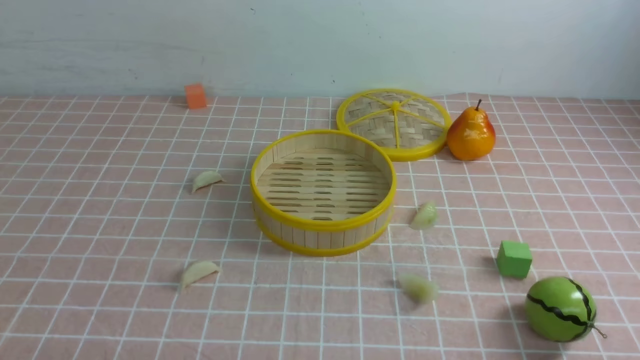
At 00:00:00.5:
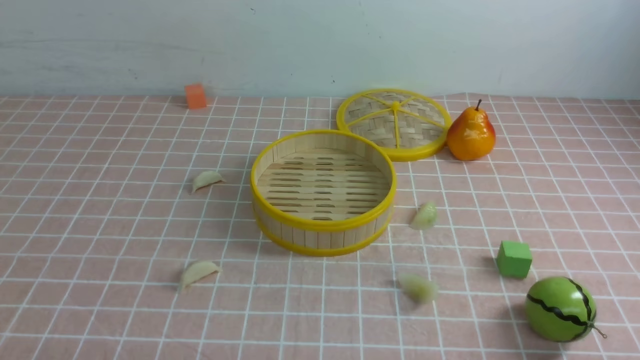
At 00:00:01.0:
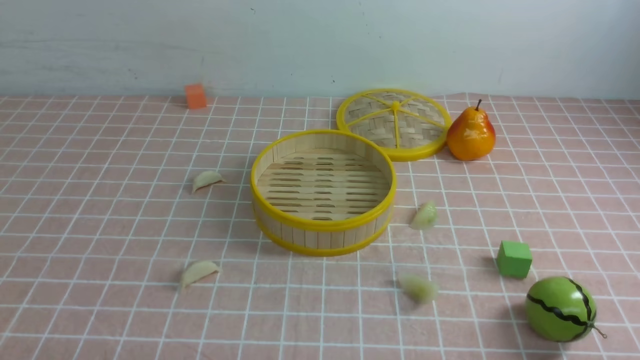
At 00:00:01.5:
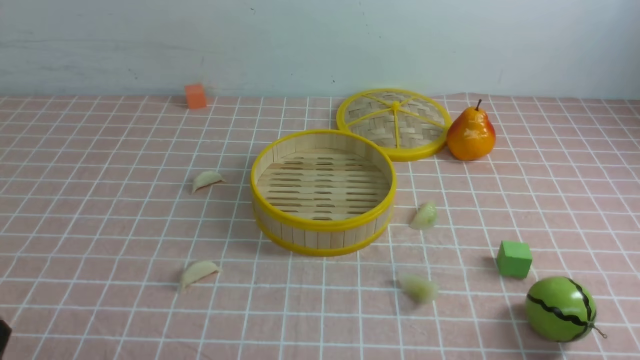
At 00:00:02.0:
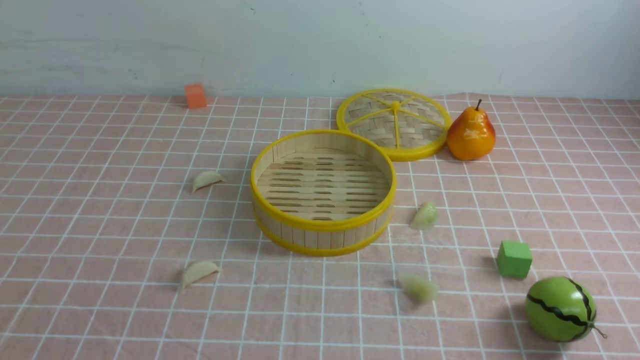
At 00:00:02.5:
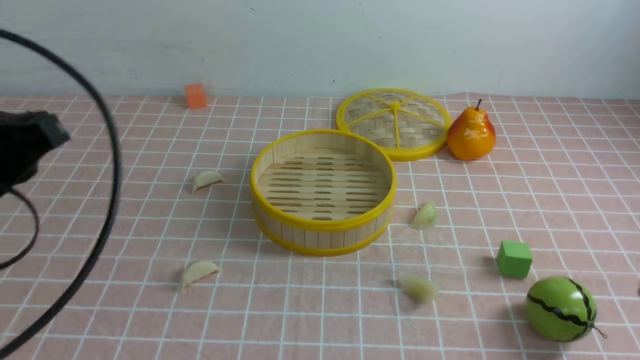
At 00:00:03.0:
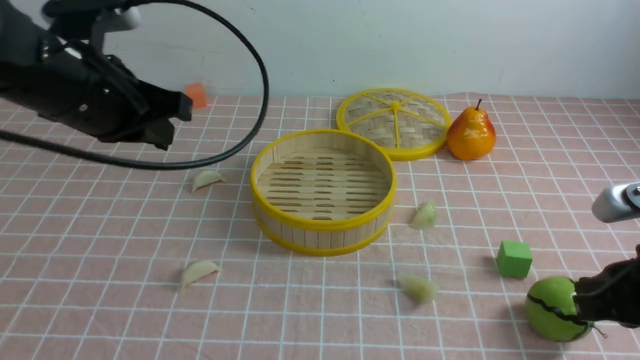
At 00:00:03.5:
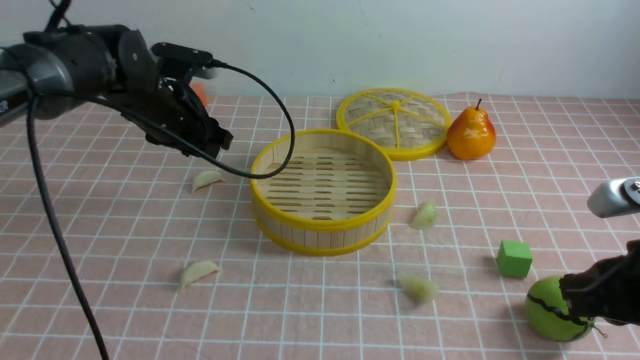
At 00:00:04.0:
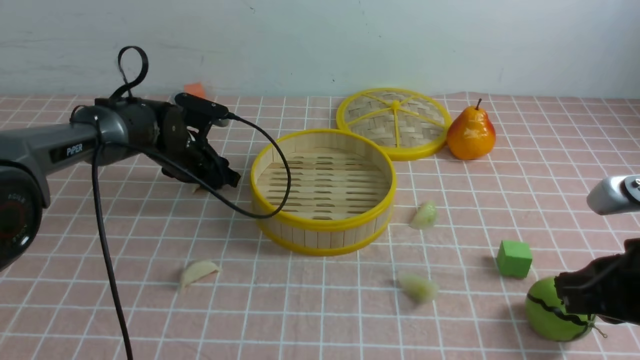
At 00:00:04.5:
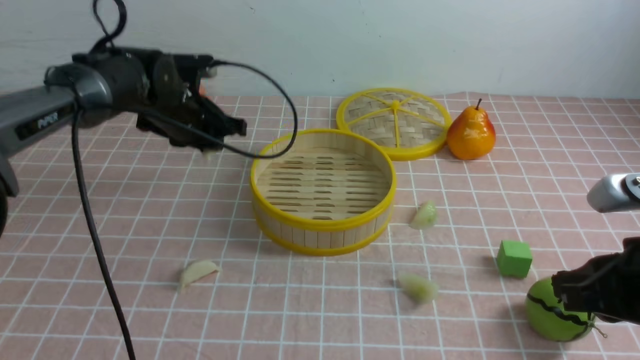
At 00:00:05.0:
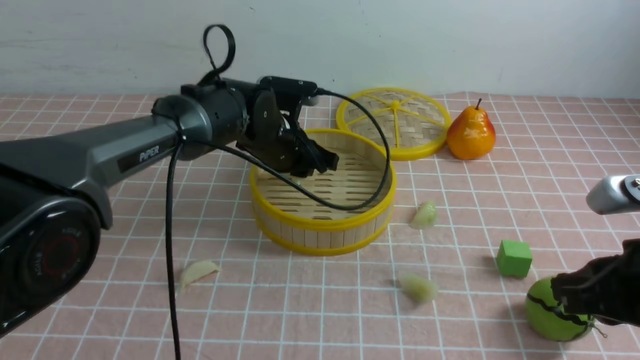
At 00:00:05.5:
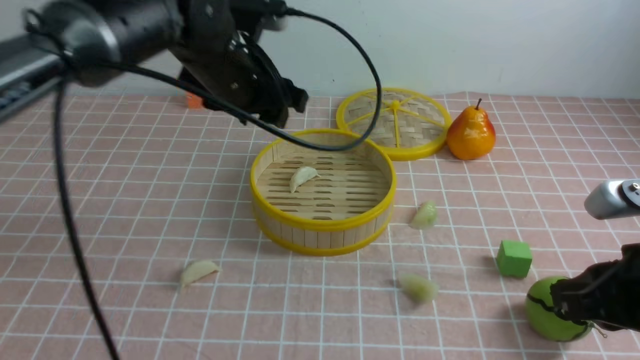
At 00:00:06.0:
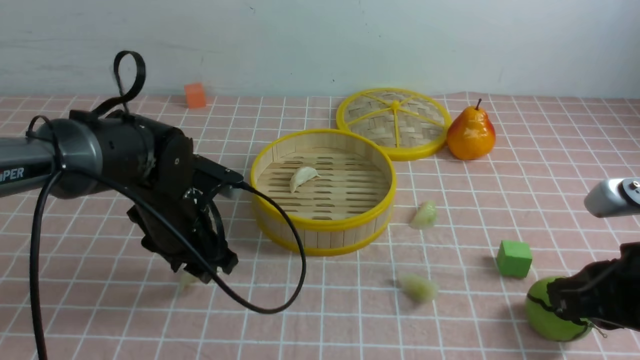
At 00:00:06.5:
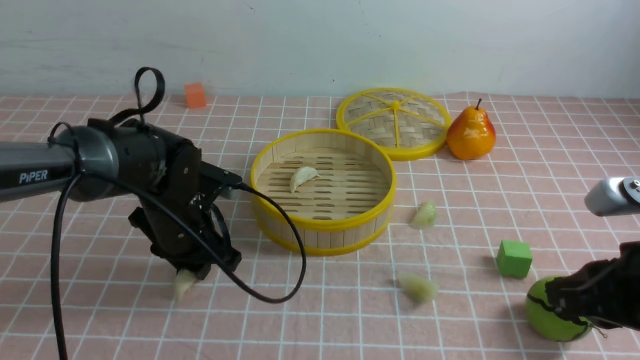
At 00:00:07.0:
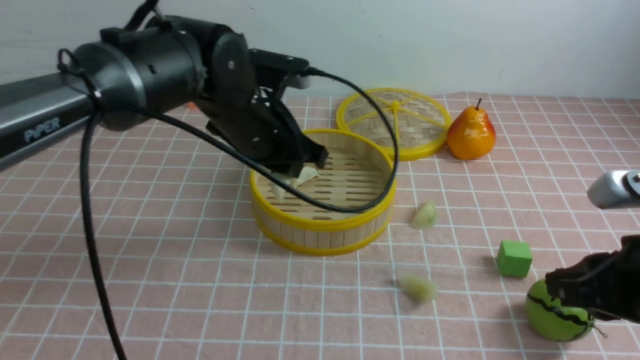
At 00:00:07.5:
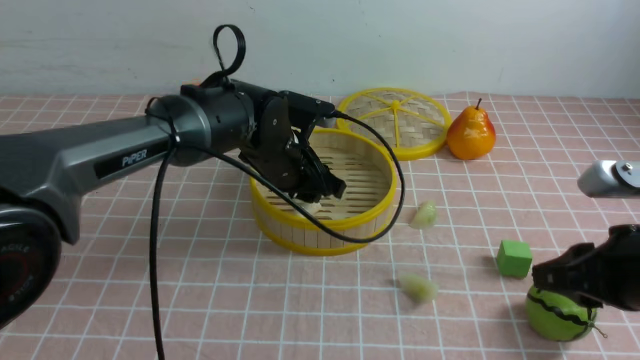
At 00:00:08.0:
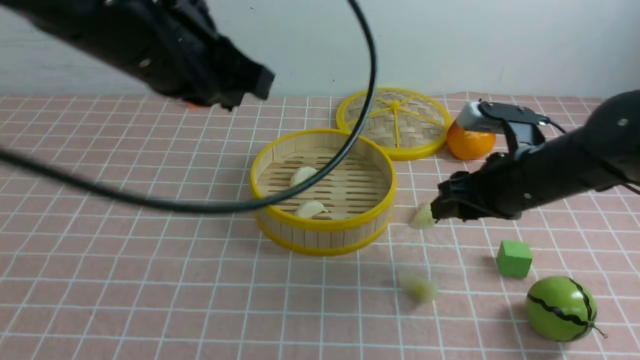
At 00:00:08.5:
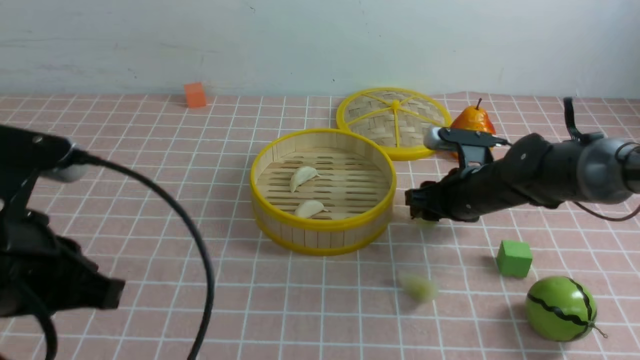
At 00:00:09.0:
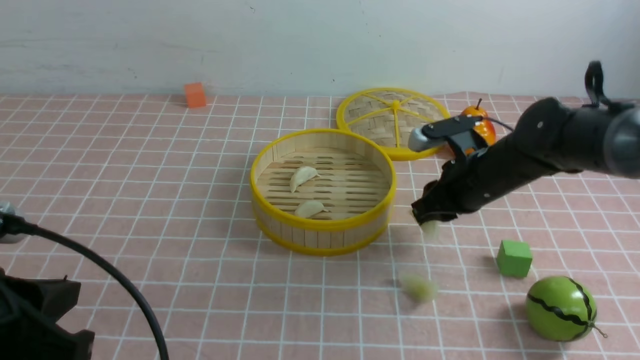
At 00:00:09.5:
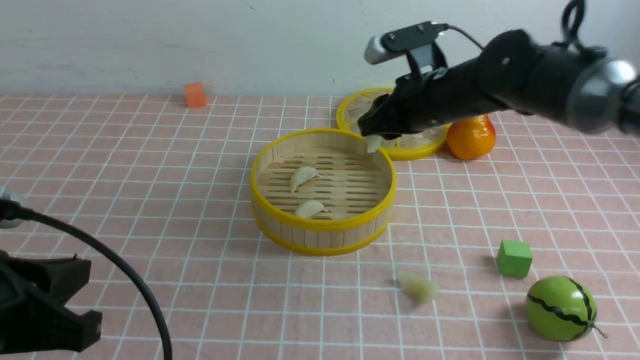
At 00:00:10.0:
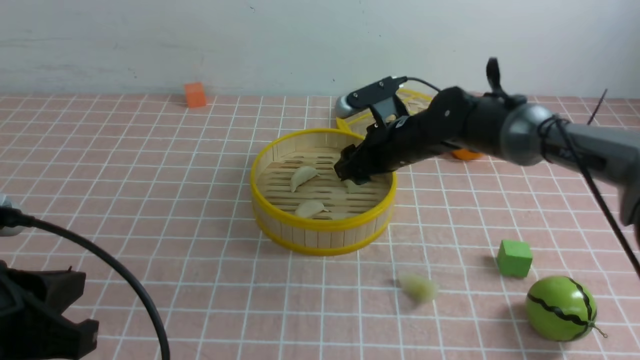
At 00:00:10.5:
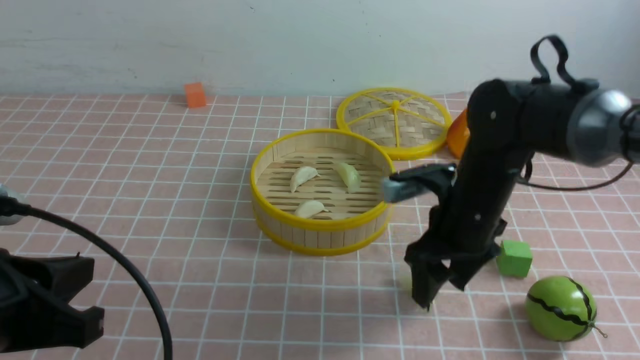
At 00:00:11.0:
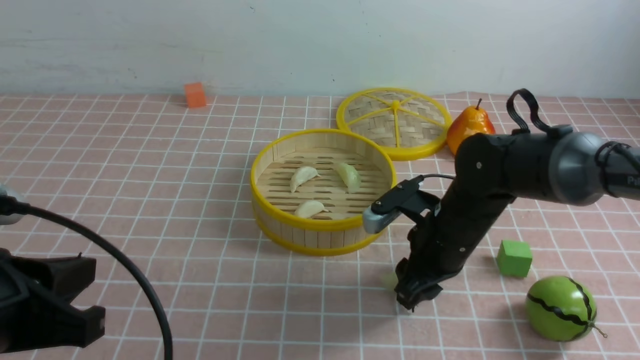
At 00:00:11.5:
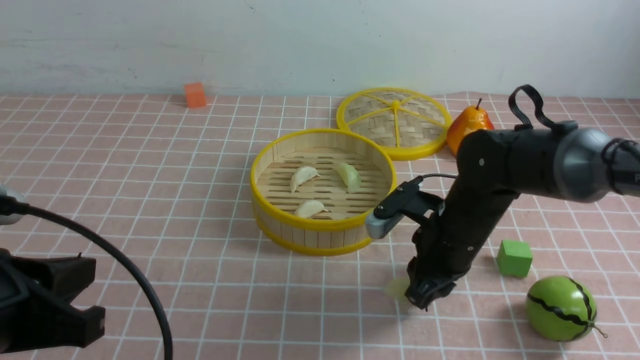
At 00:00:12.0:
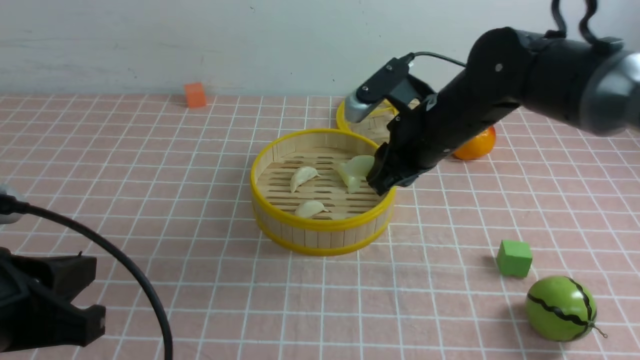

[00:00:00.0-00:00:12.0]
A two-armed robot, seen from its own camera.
Task of the whole recording: put the dumplings into the steamer on the table with the pink tablecloth.
Step, 00:00:00.0 to 00:00:04.0: use the left arm to grab a dumpling.
Step, 00:00:04.5 to 00:00:05.0: use the left arm to put the dumpling into the steamer.
Step, 00:00:05.5 to 00:00:06.5: use the left arm to grab a dumpling.
Step, 00:00:07.0 to 00:00:07.5: use the left arm to put the dumpling into the steamer.
Step, 00:00:08.0 to 00:00:09.0: use the right arm to grab a dumpling.
Step, 00:00:09.5 to 00:00:10.0: use the right arm to put the dumpling into the steamer.
Step, 00:00:10.5 to 00:00:11.5: use the right arm to grab a dumpling.
00:00:02.0 to 00:00:04.0: The left gripper goes roughly 40 cm forward, and opens its fingers. The right gripper goes some 15 cm forward.
00:00:04.0 to 00:00:06.0: The left gripper heads backward, covering about 15 cm, reaches approximately 15 cm upward, then returns, and closes, then opens again.
00:00:06.0 to 00:00:08.0: The right gripper shifts some 15 cm forward, and opens its fingers. Meanwhile the left gripper shifts approximately 20 cm upward and backward, and closes its fingers.
00:00:08.0 to 00:00:10.0: The right gripper goes some 15 cm to the left and forward, and closes, then reopens. The left gripper shifts about 20 cm backward, downward and to the left.
00:00:10.0 to 00:00:12.0: The right gripper heads backward, covering about 5 cm, and closes its fingers.

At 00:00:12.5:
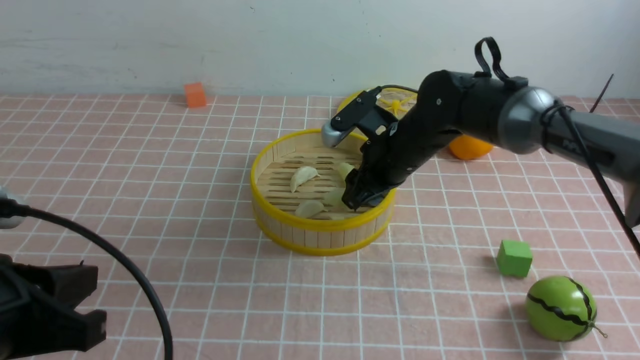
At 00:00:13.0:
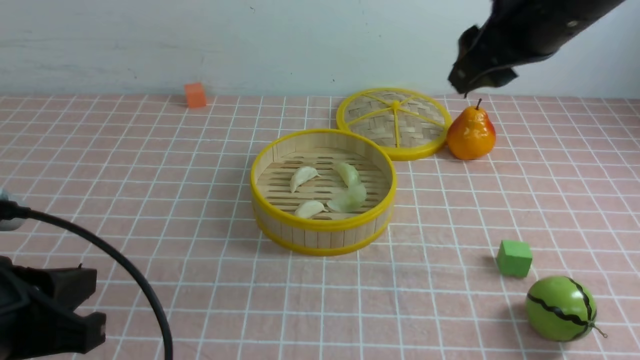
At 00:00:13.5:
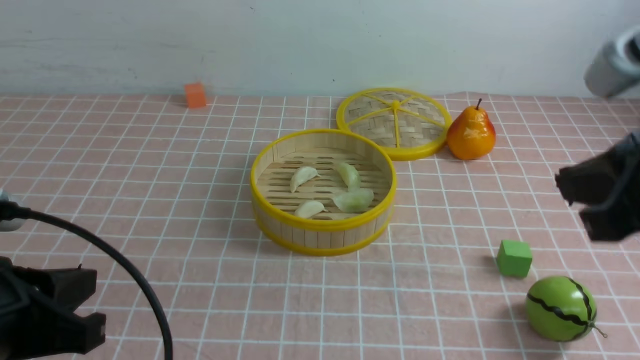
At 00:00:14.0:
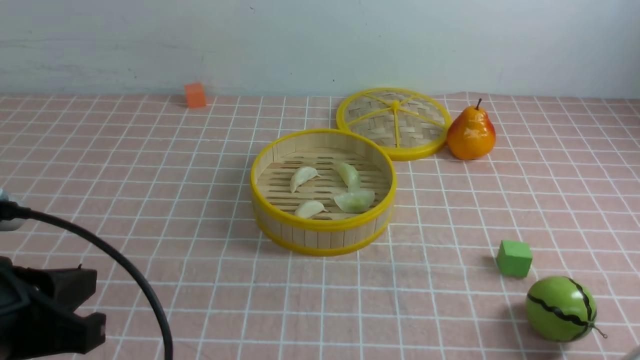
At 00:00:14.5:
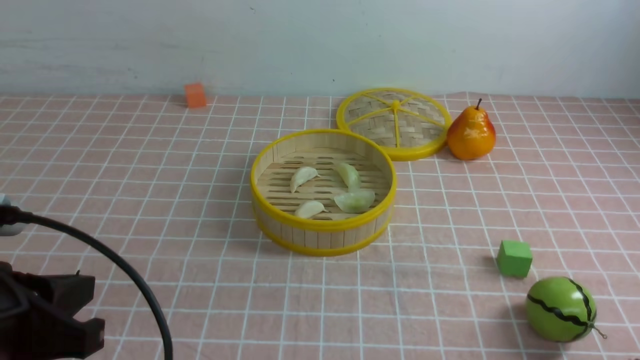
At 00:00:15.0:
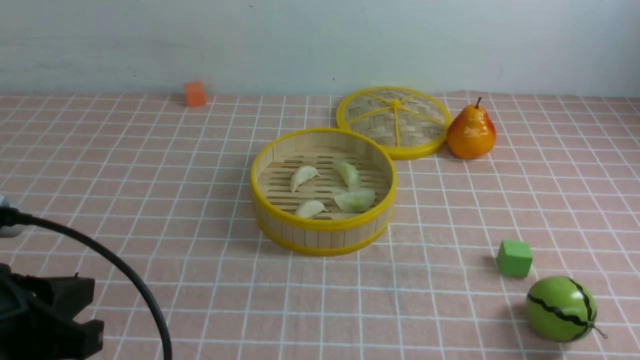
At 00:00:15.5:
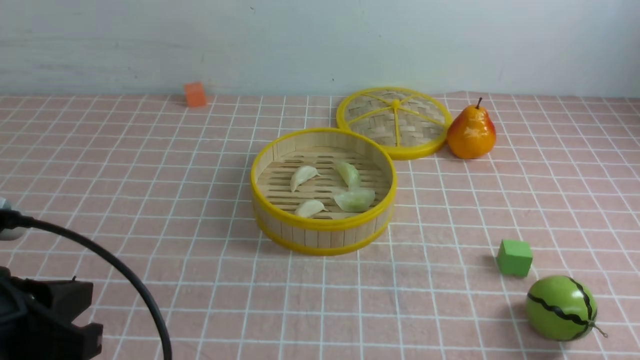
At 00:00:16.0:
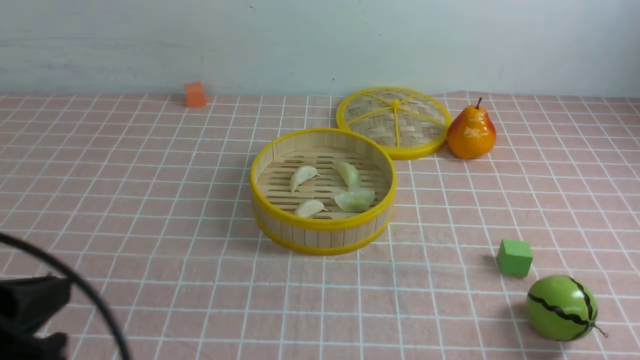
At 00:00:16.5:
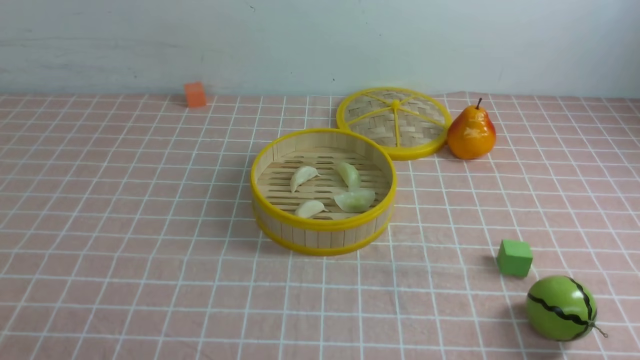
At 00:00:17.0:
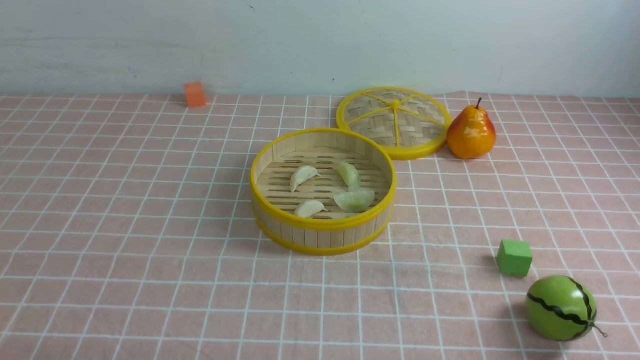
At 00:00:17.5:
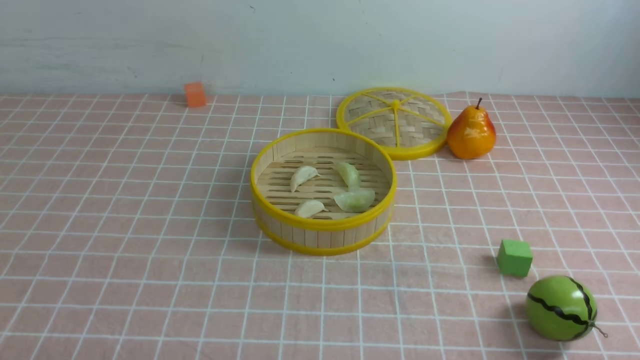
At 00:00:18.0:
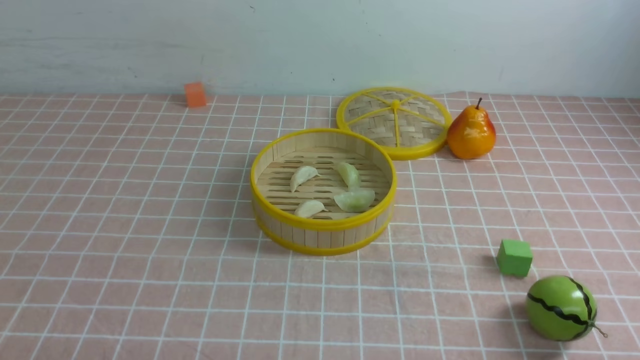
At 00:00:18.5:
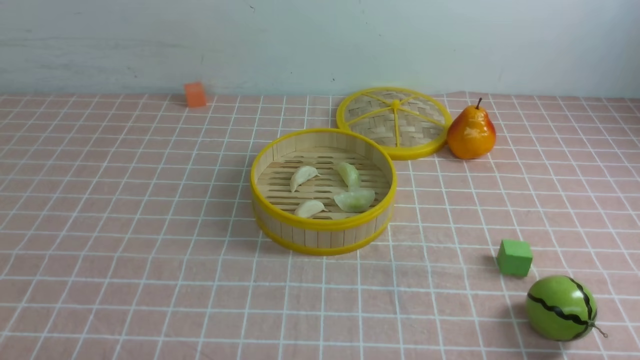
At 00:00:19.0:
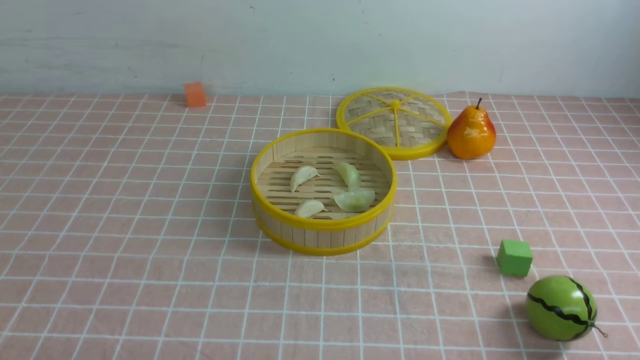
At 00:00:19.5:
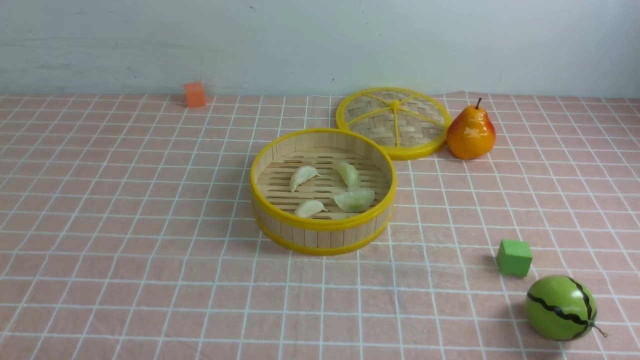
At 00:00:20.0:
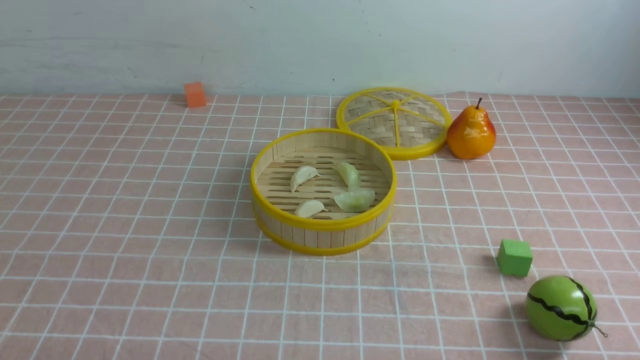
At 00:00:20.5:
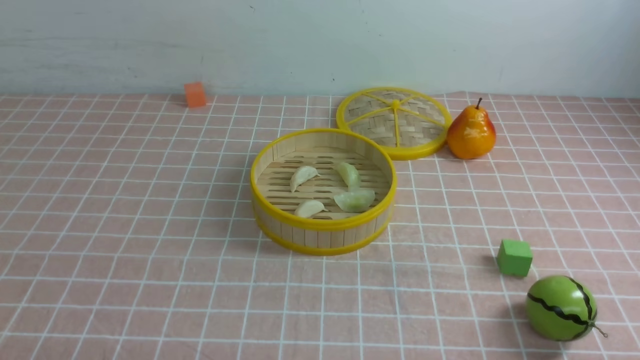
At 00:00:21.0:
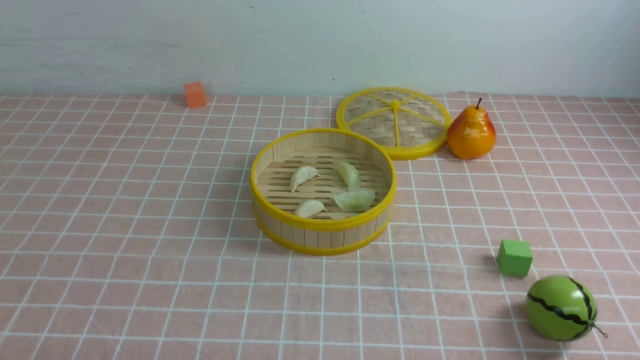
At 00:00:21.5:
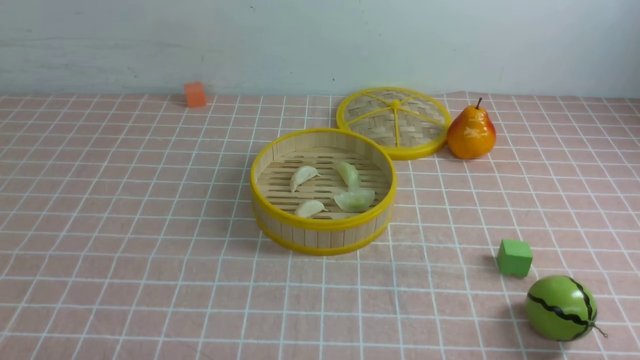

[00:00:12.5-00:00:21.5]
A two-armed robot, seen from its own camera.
Task of the whole recording: put the dumplings into the steamer on the table with the pink tablecloth.
00:00:12.5 to 00:00:14.5: The right gripper travels backward and to the right by about 40 cm, and closes its fingers.
00:00:14.5 to 00:00:17.0: The left gripper shifts approximately 15 cm downward and backward.
00:00:19.5 to 00:00:21.5: Neither gripper changes place.
